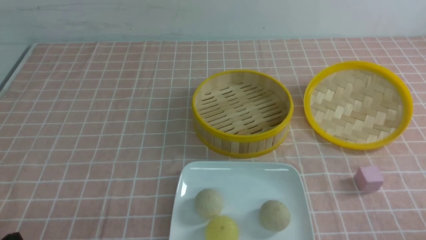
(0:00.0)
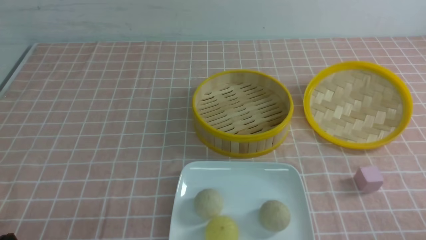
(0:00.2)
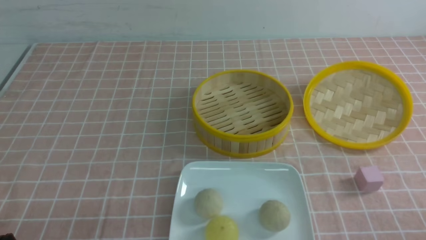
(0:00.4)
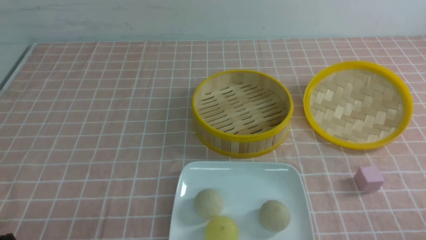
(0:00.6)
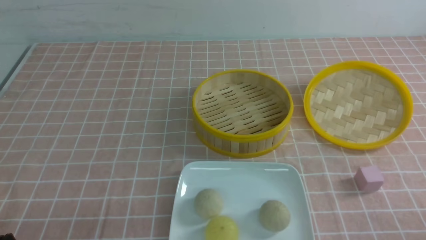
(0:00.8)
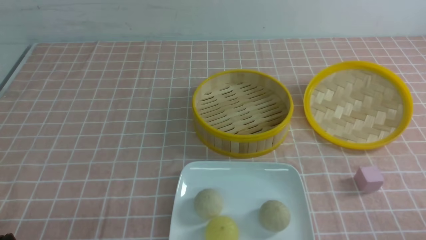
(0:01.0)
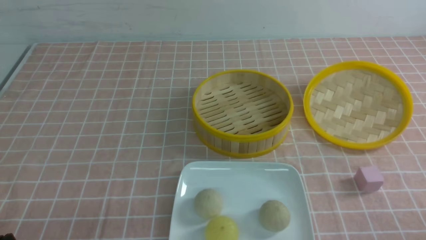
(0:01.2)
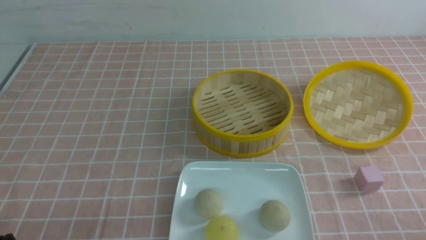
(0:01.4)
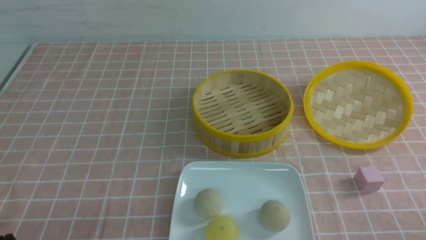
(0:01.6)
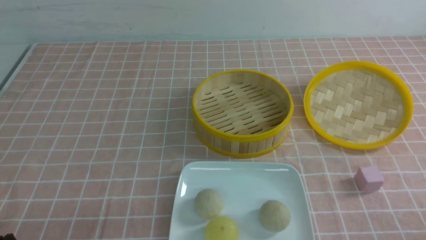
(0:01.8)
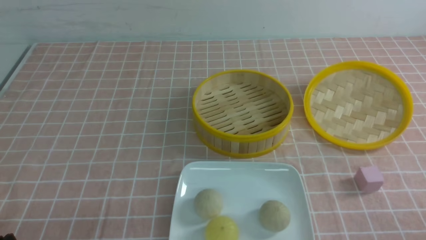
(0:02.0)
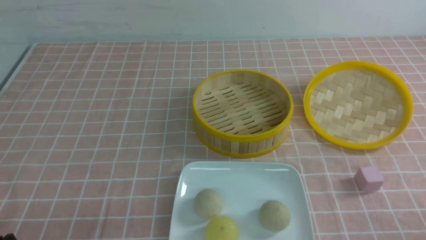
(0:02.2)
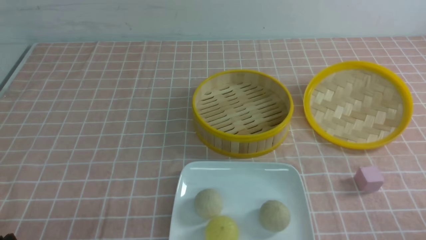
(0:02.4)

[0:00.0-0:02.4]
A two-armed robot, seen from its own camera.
0:00.0 to 0:02.4: The two grippers keep their place.

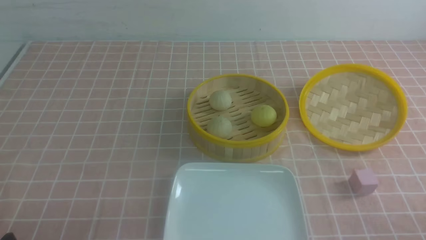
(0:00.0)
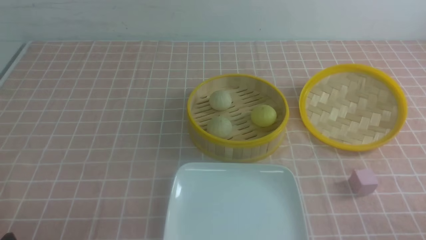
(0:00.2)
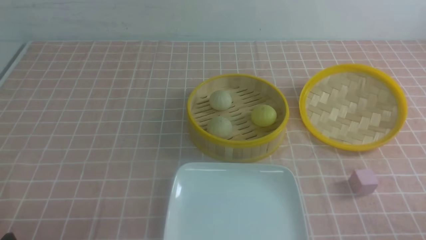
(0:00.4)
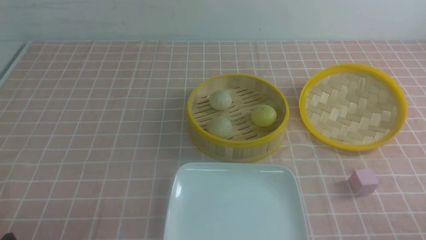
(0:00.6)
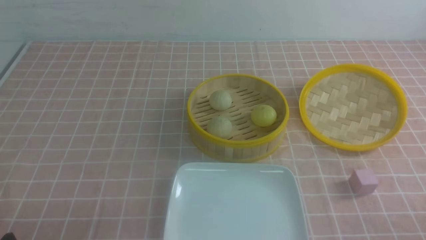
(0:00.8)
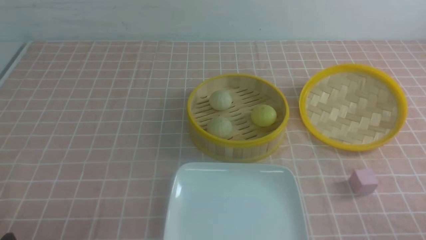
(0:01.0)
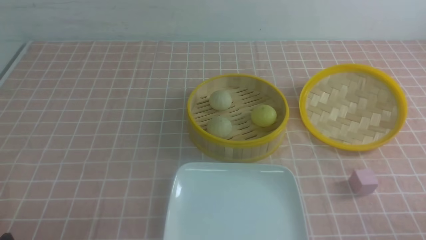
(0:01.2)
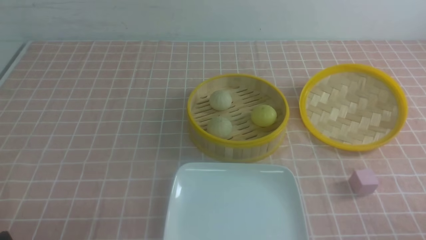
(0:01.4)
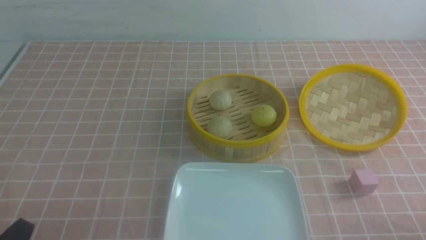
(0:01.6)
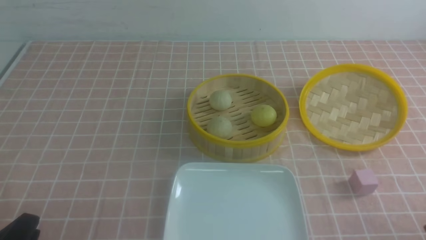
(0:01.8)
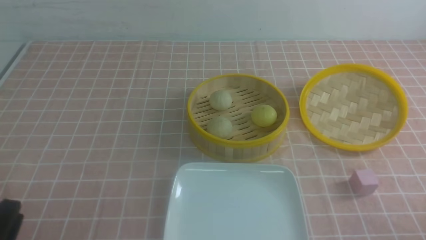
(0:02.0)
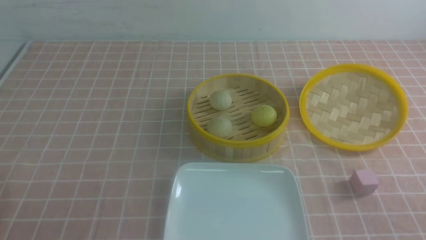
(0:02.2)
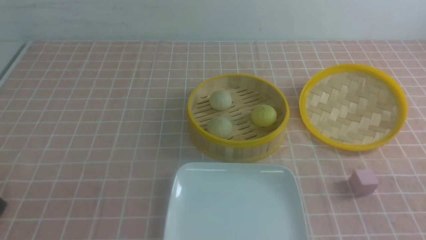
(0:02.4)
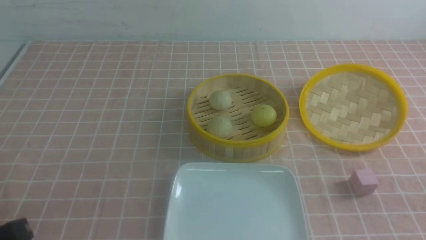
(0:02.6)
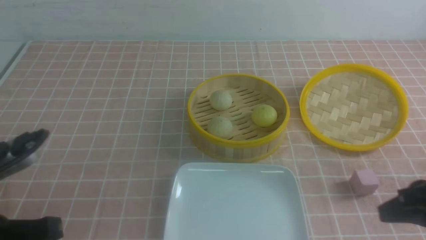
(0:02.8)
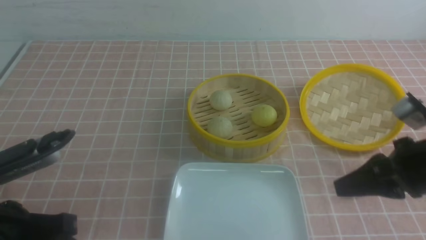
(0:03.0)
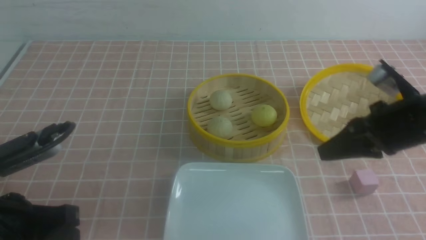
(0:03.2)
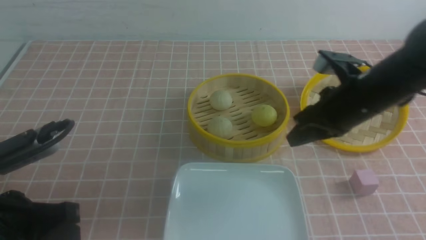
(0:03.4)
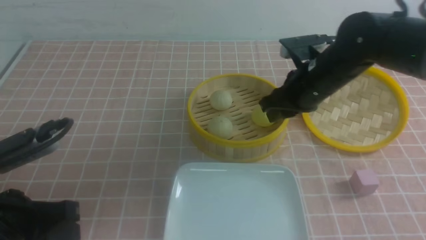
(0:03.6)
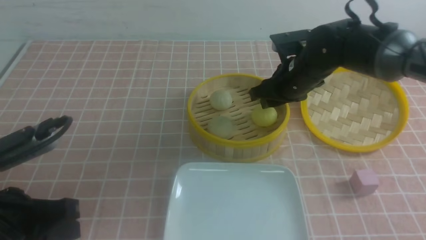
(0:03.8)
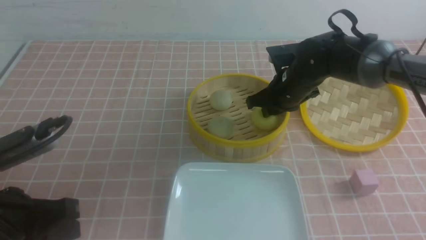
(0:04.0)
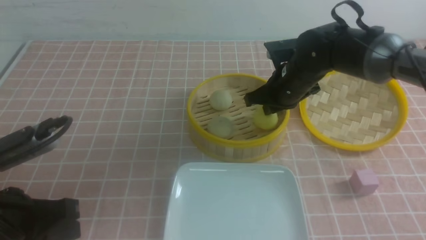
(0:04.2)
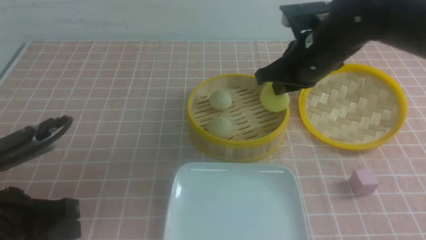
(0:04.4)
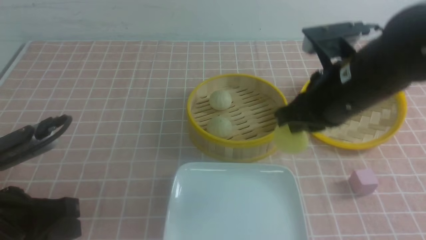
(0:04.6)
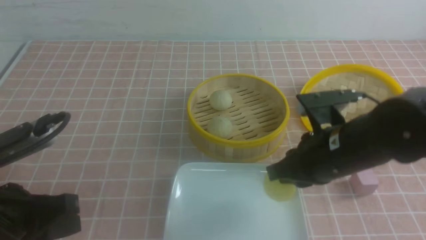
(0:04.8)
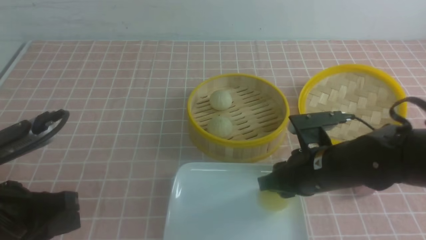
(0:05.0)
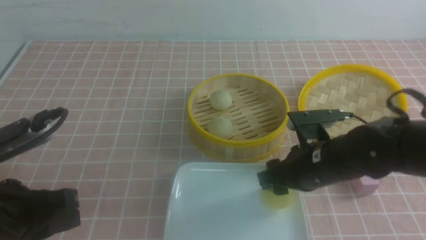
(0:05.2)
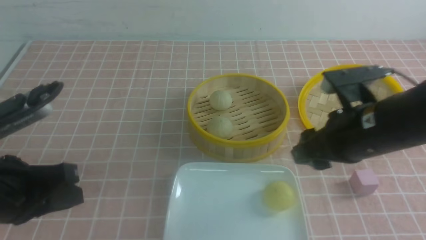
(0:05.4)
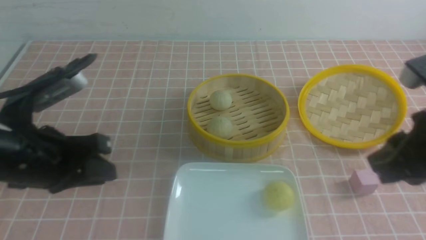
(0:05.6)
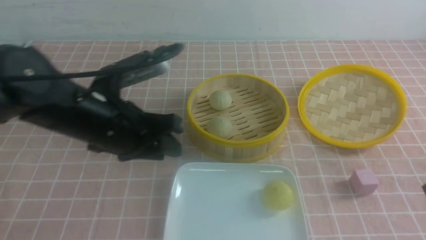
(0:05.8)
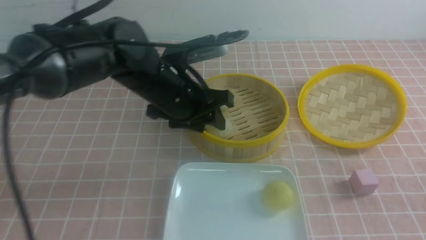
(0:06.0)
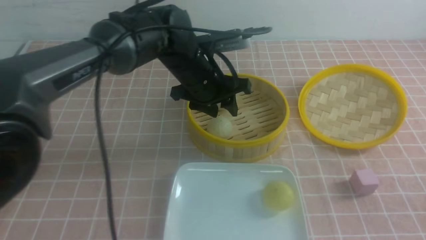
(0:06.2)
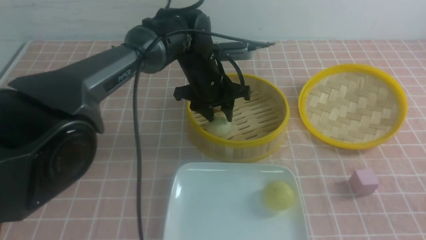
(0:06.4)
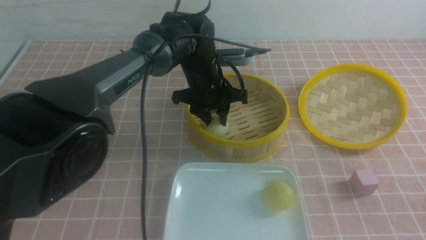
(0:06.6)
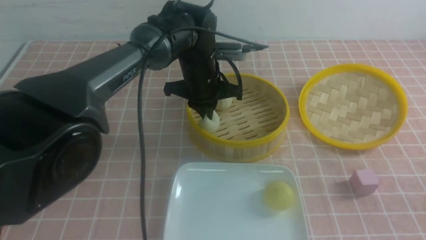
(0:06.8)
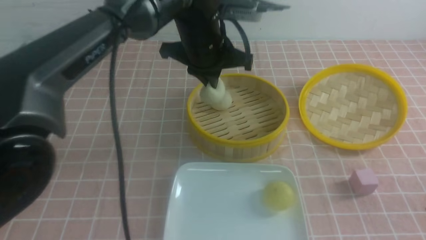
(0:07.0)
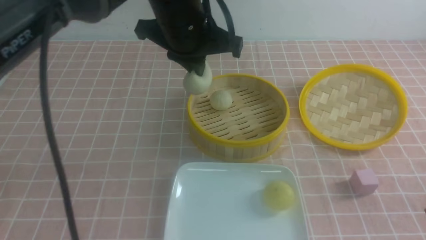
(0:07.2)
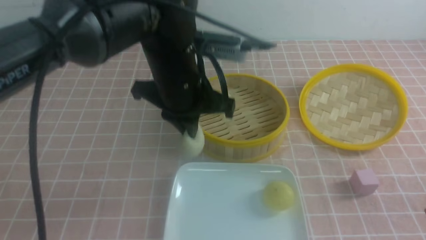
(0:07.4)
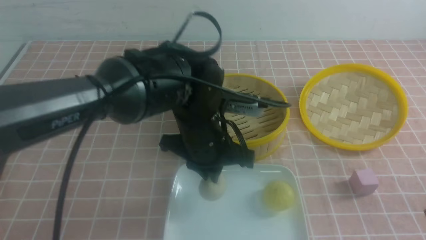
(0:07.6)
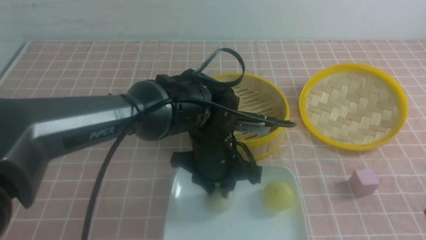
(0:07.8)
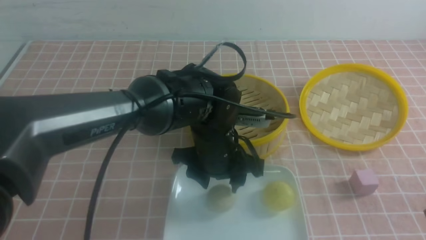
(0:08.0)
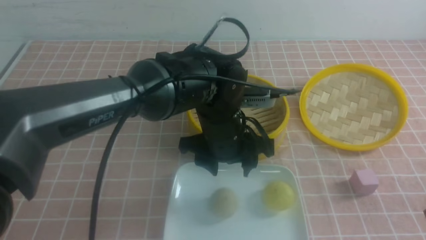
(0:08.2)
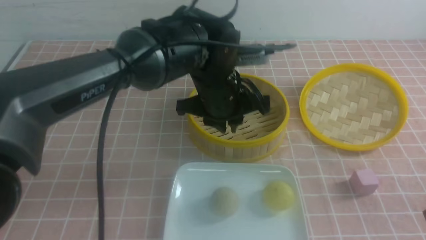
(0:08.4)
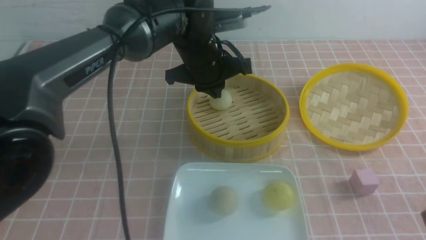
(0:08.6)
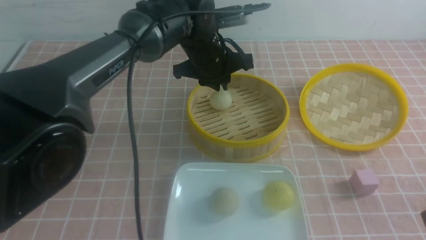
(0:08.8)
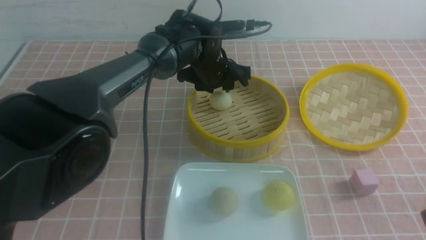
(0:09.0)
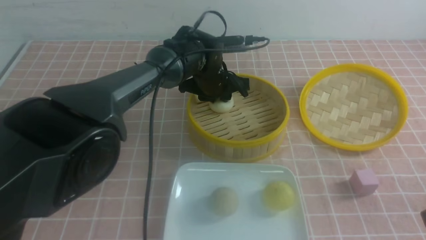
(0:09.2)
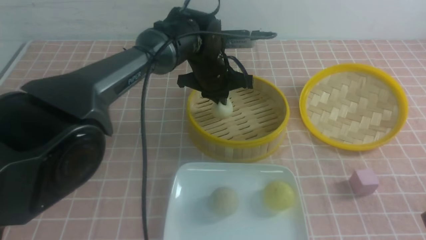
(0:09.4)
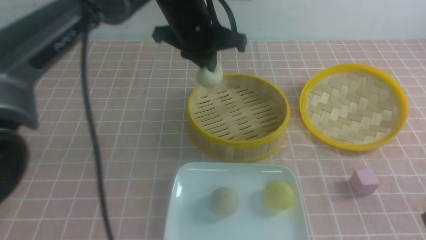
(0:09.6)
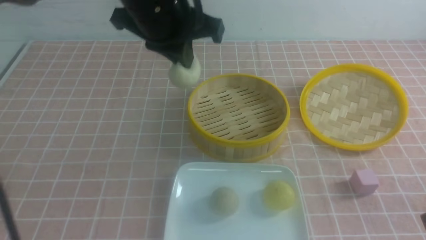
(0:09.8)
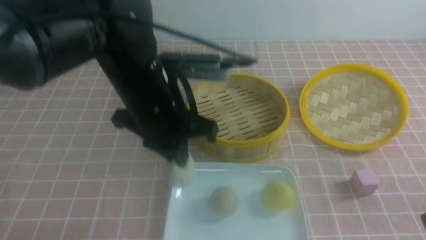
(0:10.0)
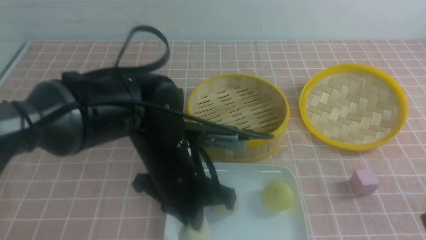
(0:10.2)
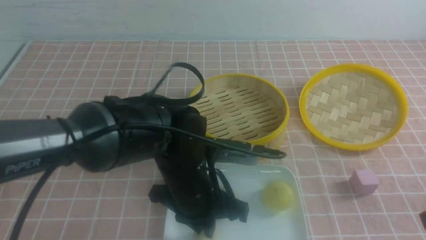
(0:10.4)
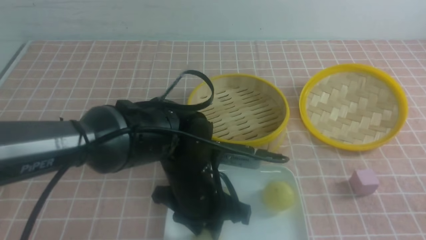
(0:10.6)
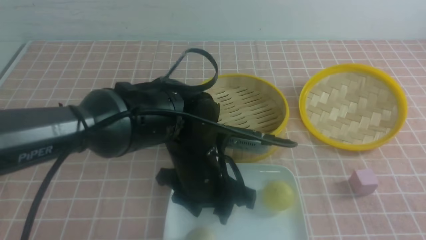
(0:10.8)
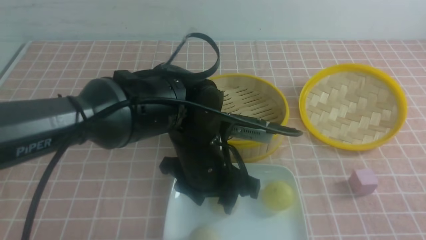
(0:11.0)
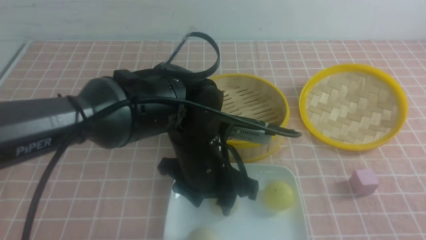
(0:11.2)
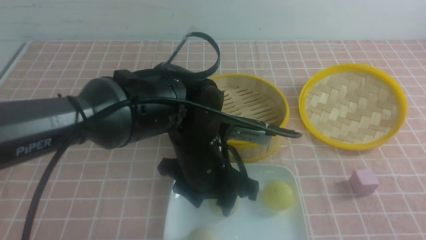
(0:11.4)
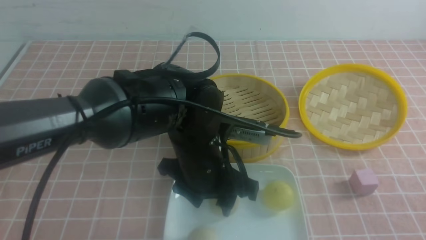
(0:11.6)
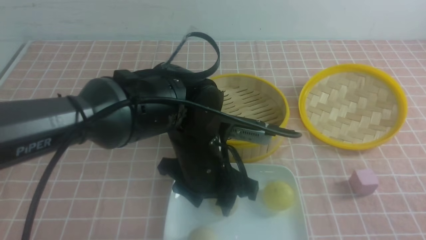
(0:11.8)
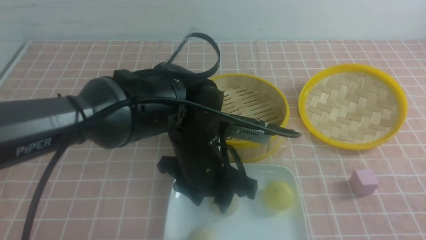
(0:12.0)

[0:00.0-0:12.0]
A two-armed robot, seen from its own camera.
Step, 0:00.0 to 0:04.0: use the right arm to grab the steamed stuffed bun that is closest to it.
Step, 0:04.4 to 0:05.2: use the right arm to put the steamed stuffed bun into the plate.
Step, 0:05.4 to 0:06.6: use the left arm to grab the steamed stuffed bun that is closest to it.
Step, 0:06.8 to 0:07.8: use the left arm to put the steamed stuffed bun into the plate.
Step, 0:08.0 to 0:09.2: use the left arm to grab the steamed stuffed bun that is closest to it.
Step, 0:09.4 to 0:10.6: use the left arm to put the steamed stuffed bun into the plate.
0:01.6 to 0:03.0: The right gripper is displaced forward and upward by approximately 20 cm, and closes up, while the left gripper is displaced upward and forward by approximately 10 cm, and closes its fingers.
0:03.0 to 0:04.4: The right gripper is displaced forward and to the left by approximately 15 cm, and opens and closes again.
0:04.4 to 0:06.0: The left gripper is displaced forward and to the right by some 25 cm, and opens. The right gripper is displaced backward and to the right by about 25 cm, and opens, then closes once more.
0:06.0 to 0:07.6: The left gripper shifts roughly 5 cm to the right, goes forward and returns, some 10 cm each way, and closes.
0:07.6 to 0:09.0: The left gripper moves forward, roughly 15 cm, and opens and closes again.
0:09.0 to 0:10.4: The left gripper goes roughly 20 cm backward.
0:10.4 to 0:12.0: The right gripper shifts by some 5 cm, while the left gripper opens up.

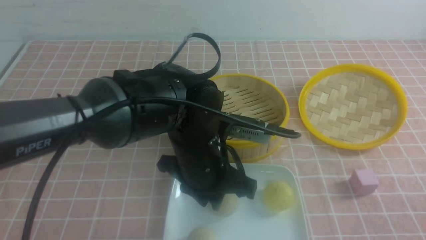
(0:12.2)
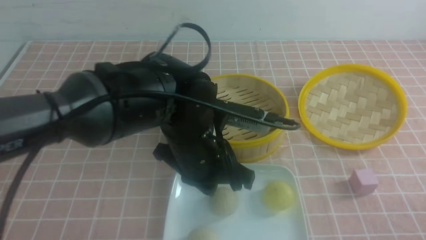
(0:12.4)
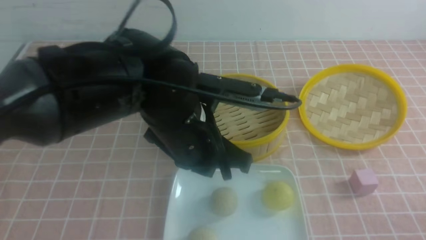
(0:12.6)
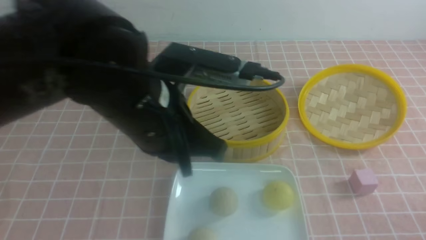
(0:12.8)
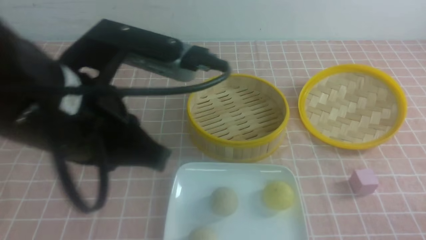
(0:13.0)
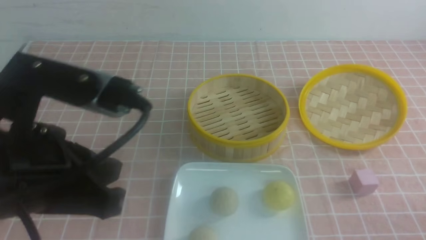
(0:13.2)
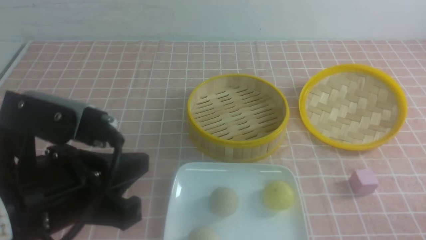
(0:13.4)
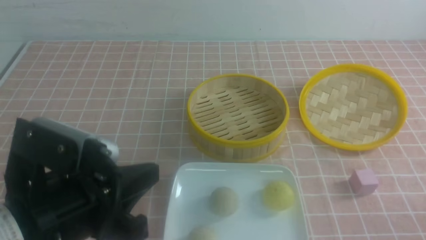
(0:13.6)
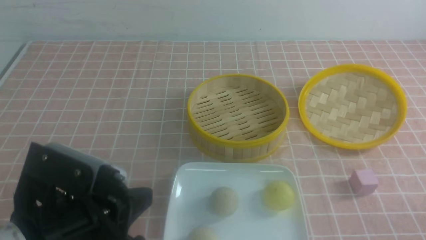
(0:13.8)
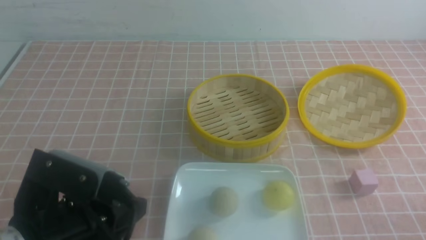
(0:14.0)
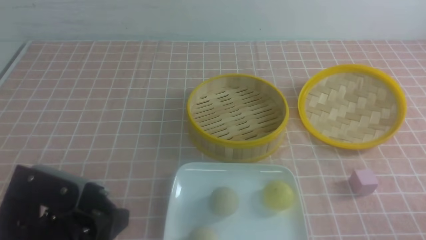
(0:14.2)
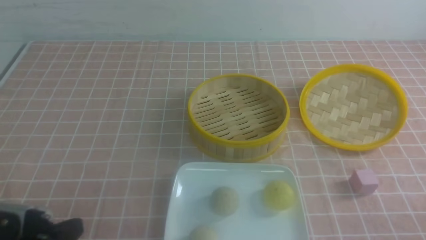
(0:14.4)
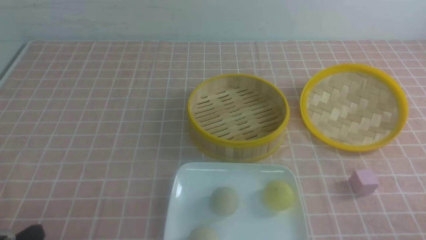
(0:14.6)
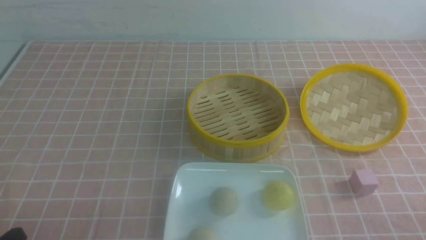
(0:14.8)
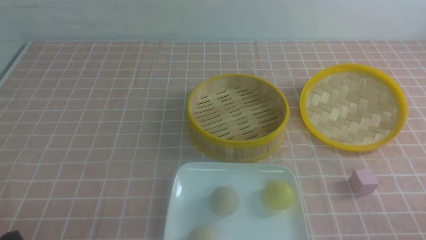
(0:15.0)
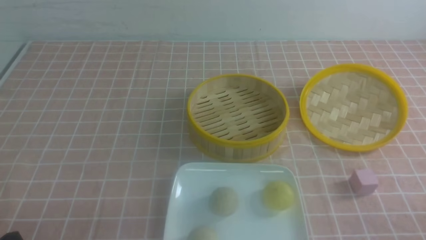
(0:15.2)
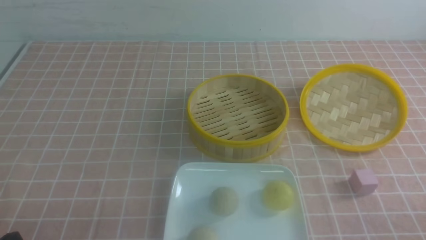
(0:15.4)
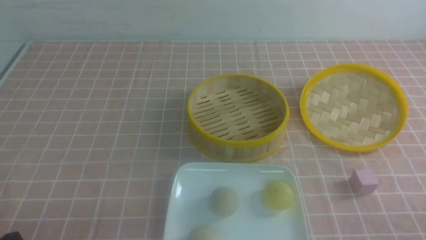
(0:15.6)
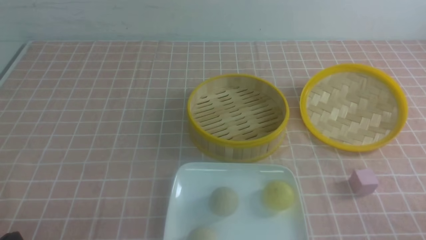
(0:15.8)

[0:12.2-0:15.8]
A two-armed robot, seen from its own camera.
0:12.2 to 0:14.0: The left gripper shifts roughly 20 cm to the left and backward, and closes. The right gripper ends up some 5 cm from where it was.
0:14.0 to 0:15.8: The left gripper is displaced to the left, downward and backward by about 15 cm.
